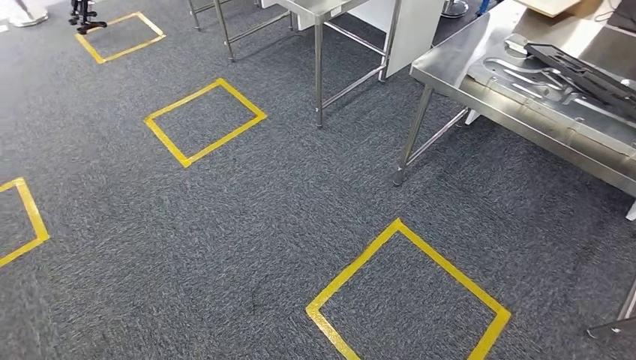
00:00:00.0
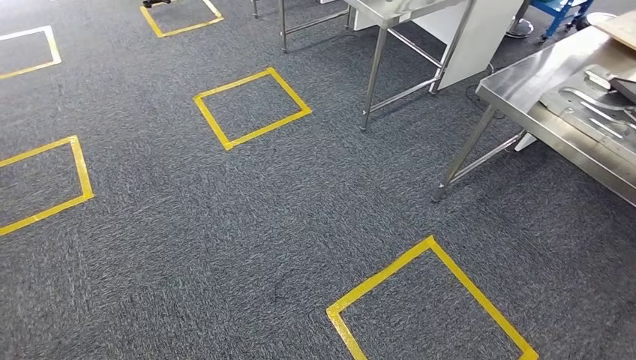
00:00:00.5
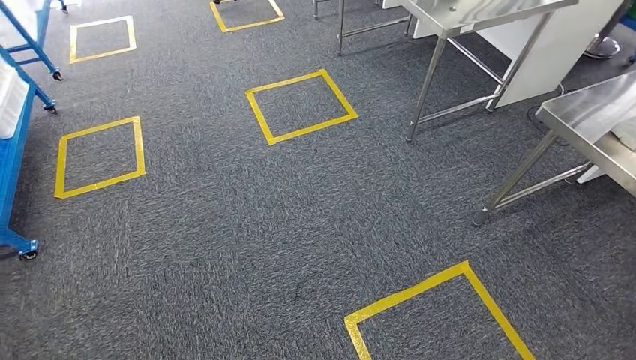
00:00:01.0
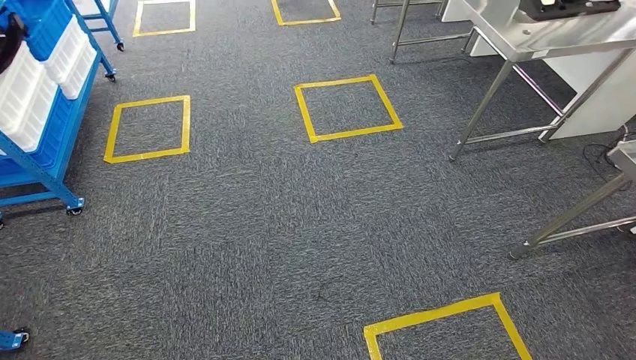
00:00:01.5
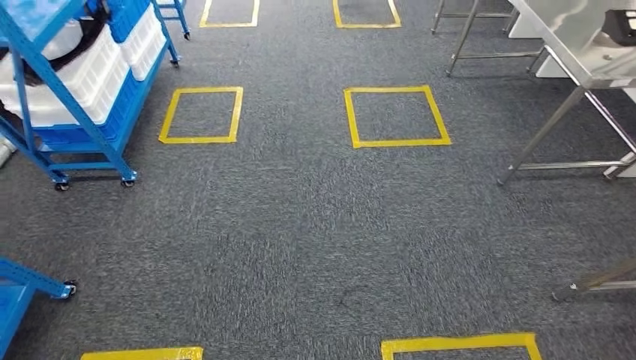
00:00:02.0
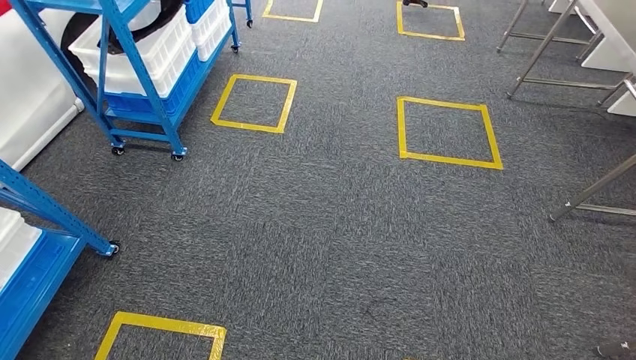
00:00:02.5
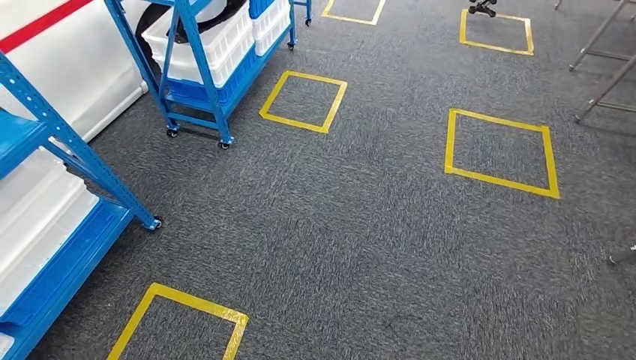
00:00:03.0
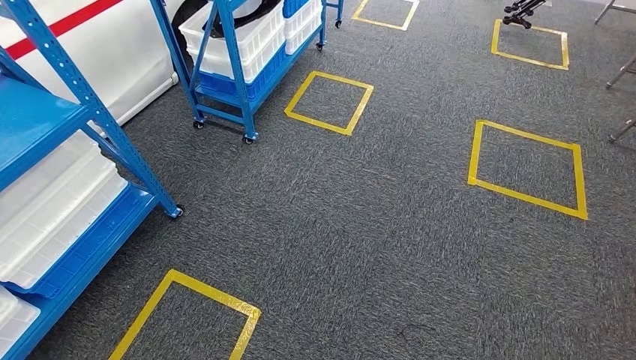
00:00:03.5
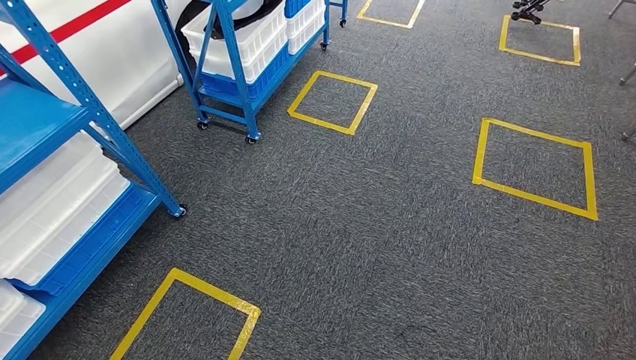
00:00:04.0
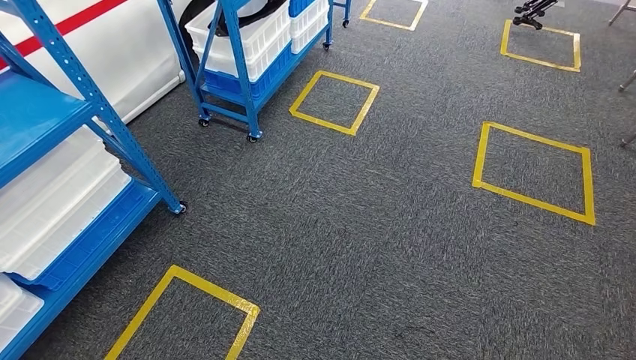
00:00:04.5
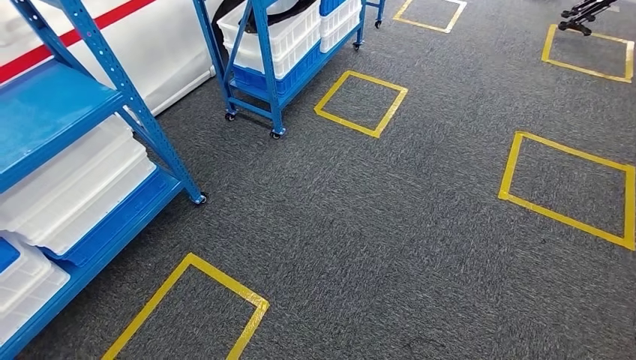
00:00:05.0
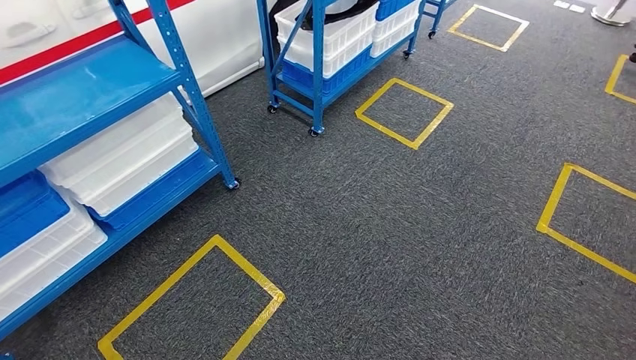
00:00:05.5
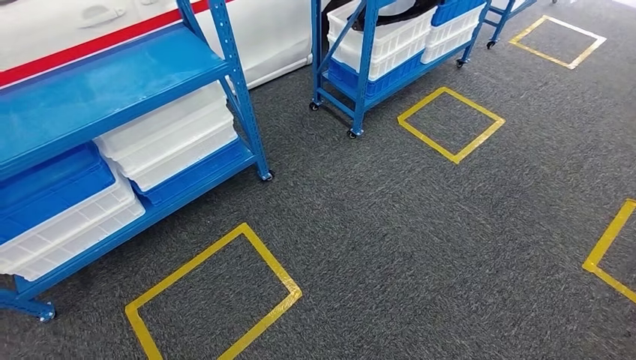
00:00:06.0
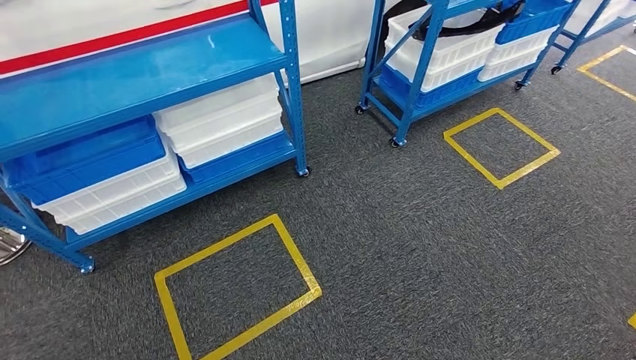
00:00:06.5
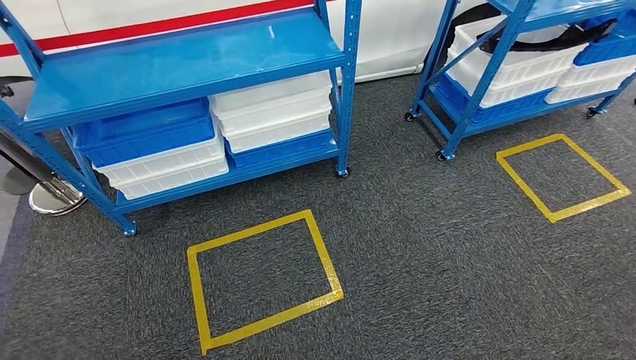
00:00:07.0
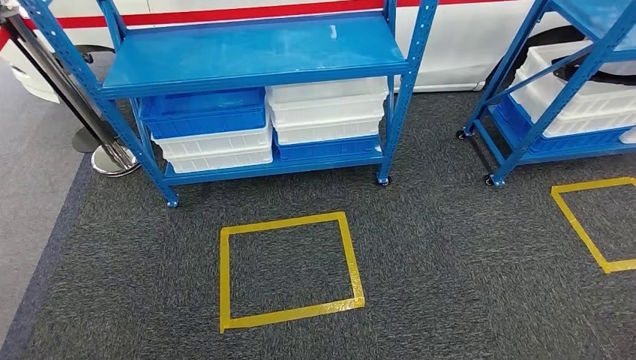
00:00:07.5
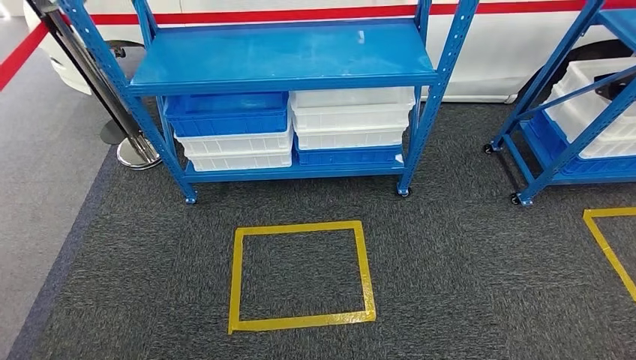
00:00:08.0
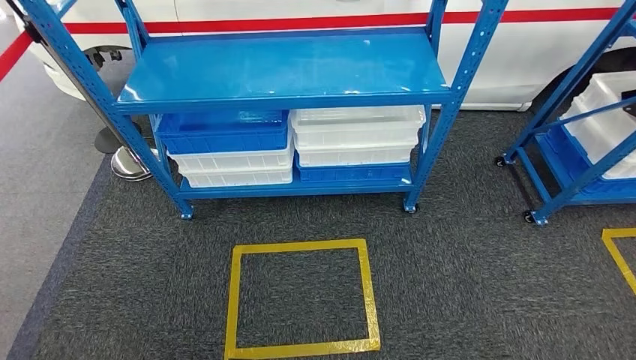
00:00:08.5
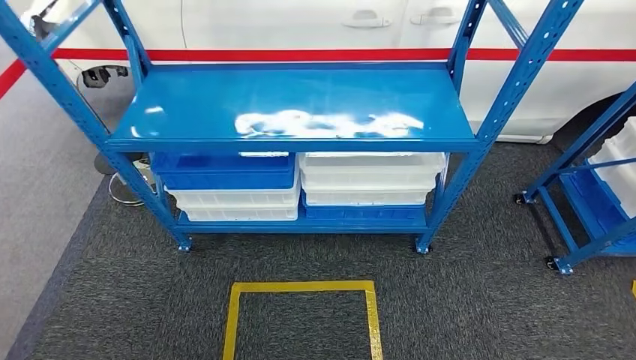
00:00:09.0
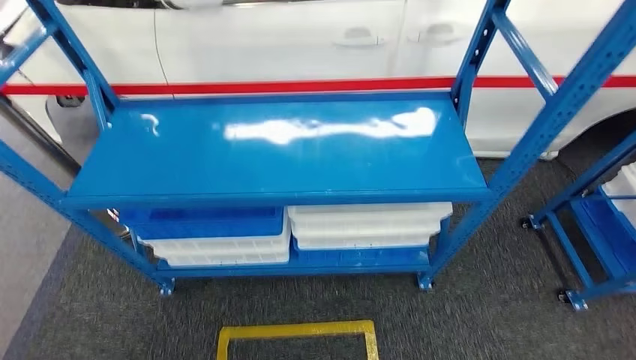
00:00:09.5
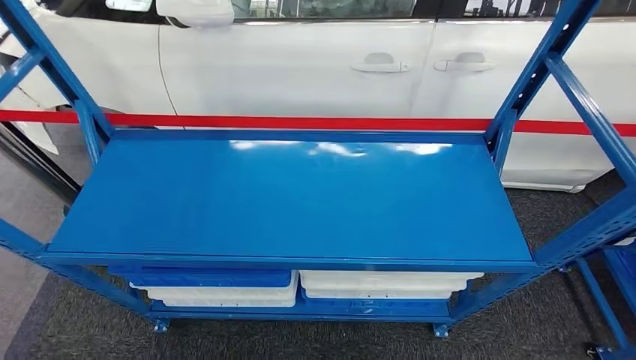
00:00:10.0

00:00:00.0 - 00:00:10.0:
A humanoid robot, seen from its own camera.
Step, 00:00:04.5 - 00:00:10.0: Move to the initial position of the shelf.
